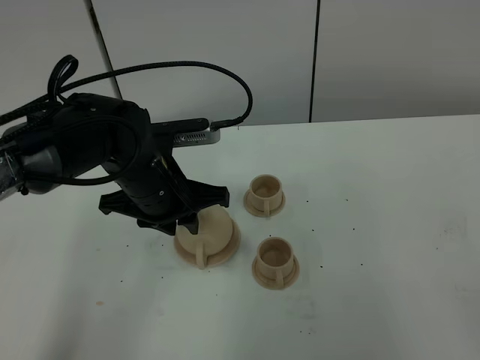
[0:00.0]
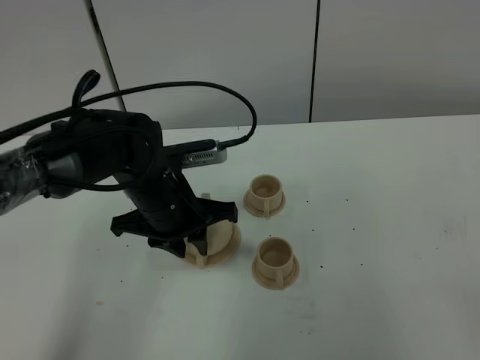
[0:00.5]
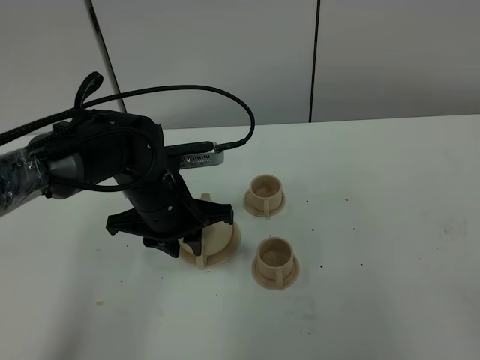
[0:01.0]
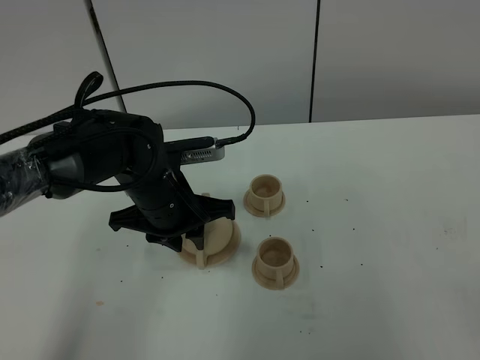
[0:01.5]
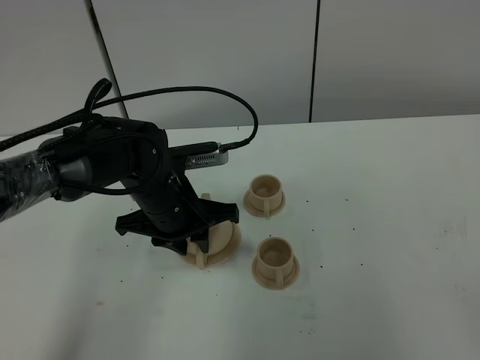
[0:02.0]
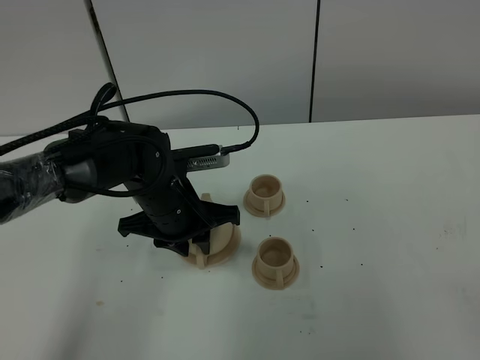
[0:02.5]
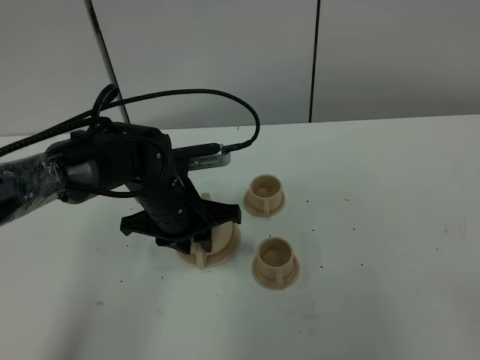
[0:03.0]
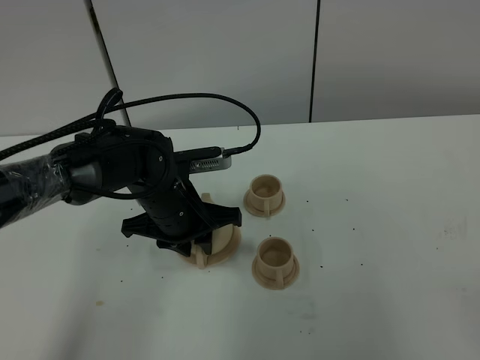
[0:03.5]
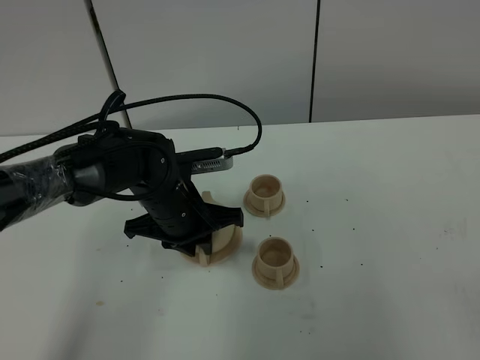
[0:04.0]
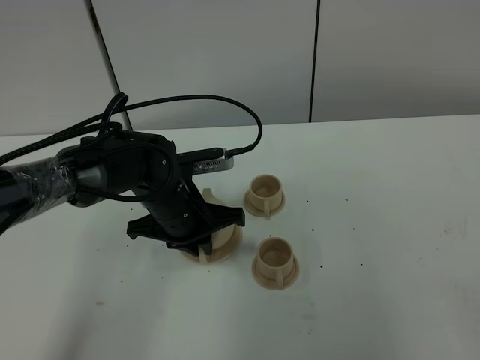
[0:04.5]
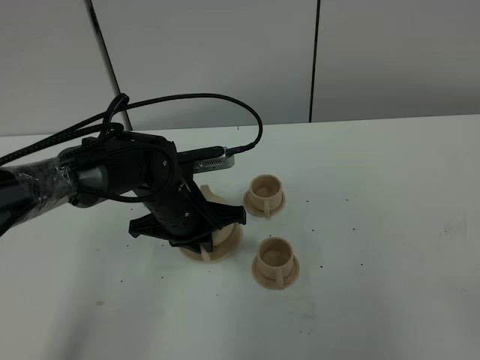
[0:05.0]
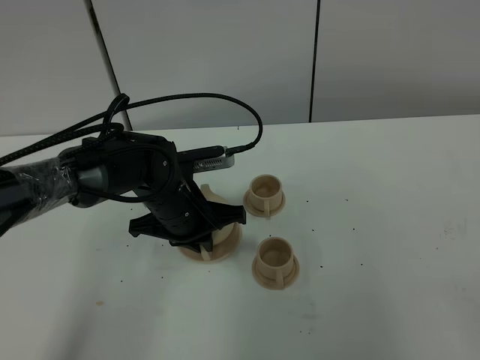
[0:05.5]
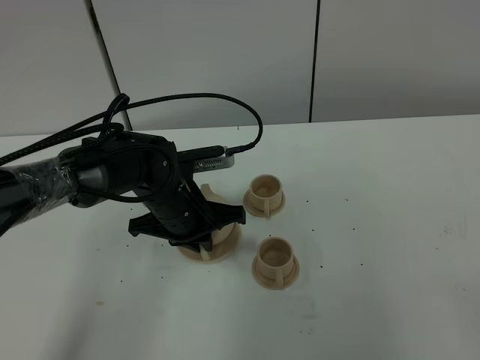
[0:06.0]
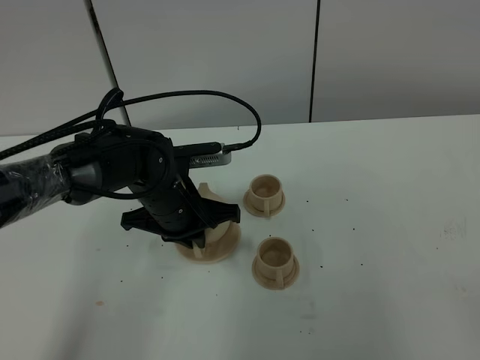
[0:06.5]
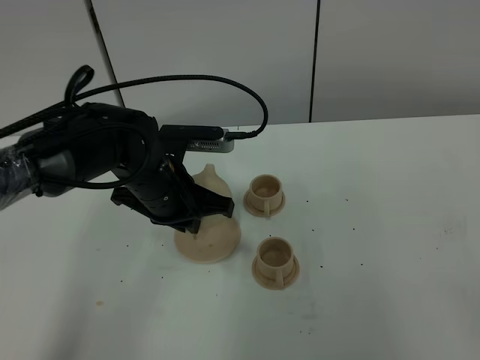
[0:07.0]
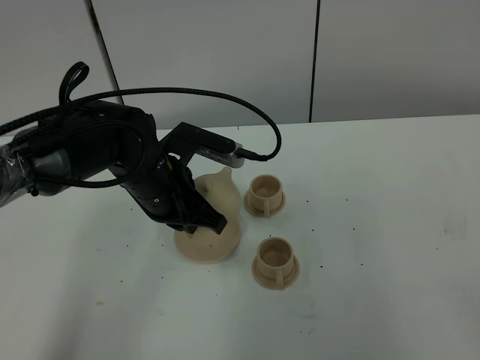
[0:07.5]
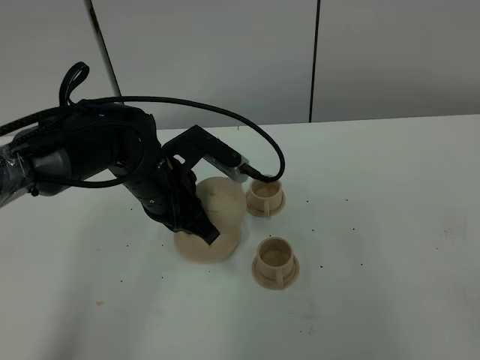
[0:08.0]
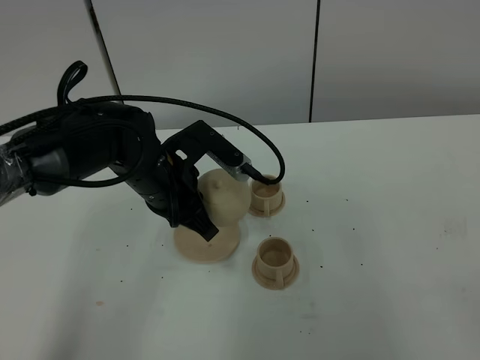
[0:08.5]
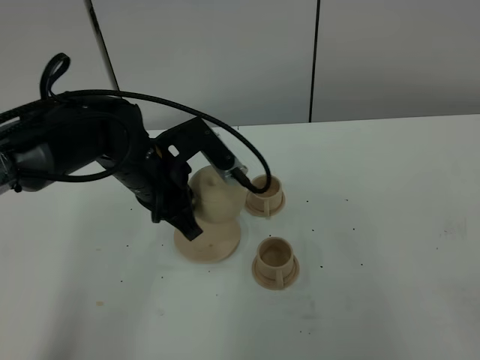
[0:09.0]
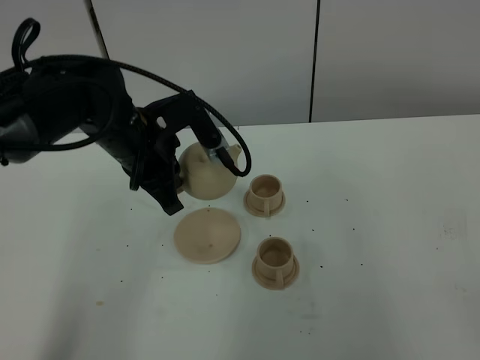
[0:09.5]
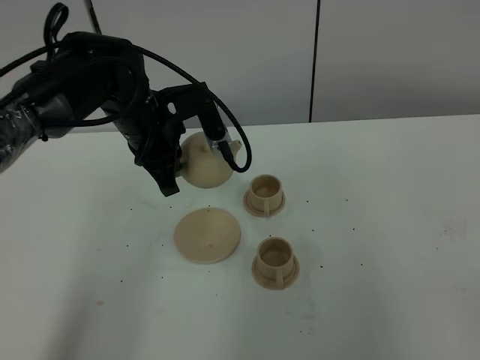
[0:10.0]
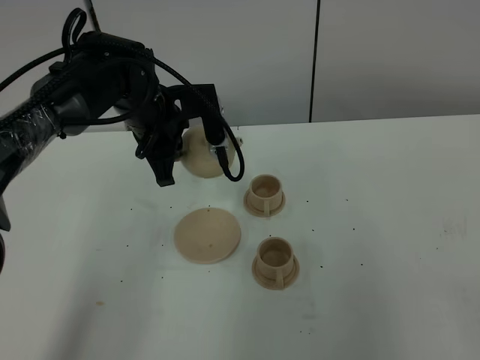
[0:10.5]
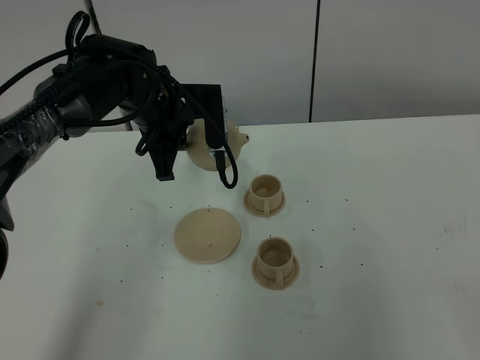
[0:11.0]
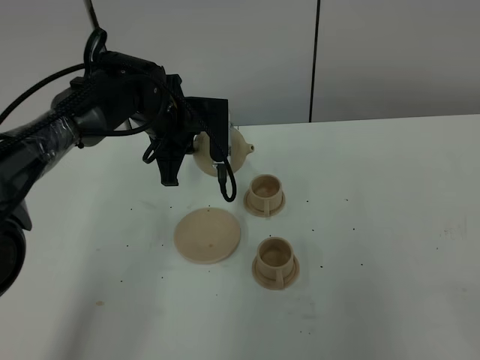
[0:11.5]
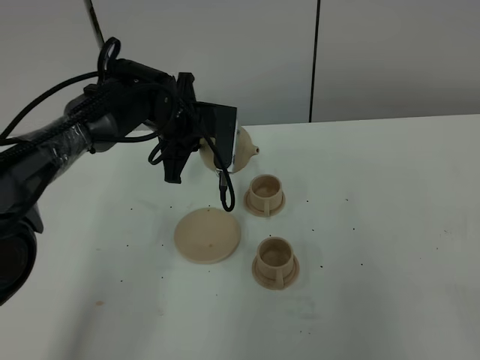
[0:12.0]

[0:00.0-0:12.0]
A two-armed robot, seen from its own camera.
Task of the whole recording: grasp the brown teapot and pour the tea into the two brown teacups one by one, put the brown teapot back in its original place.
Step, 0:00.0 to 0:06.5: Pick up the teapot with the left gripper.
0:00.0 to 0:02.0: There are only small adjustments of the grippers.
0:02.0 to 0:04.0: The left gripper closes.
0:04.0 to 0:06.0: The left gripper closes up.
0:06.0 to 0:08.0: The left gripper moves upward, approximately 5 cm.
0:08.0 to 0:10.0: The left gripper heads forward, covering roughly 5 cm.
0:10.0 to 0:12.0: The left gripper changes place by roughly 5 cm.

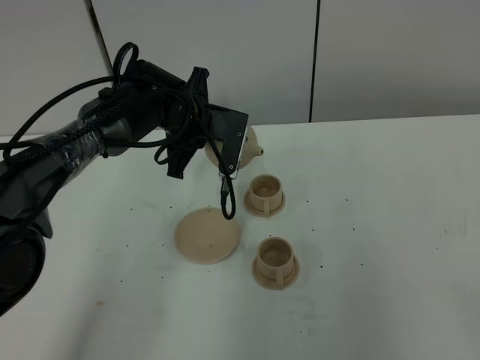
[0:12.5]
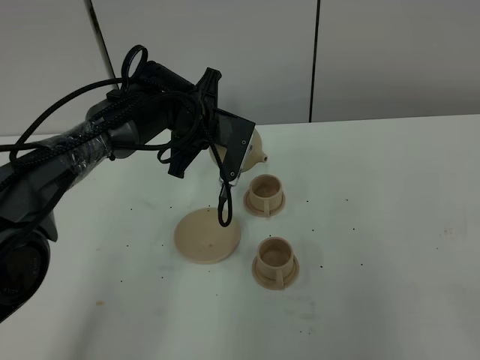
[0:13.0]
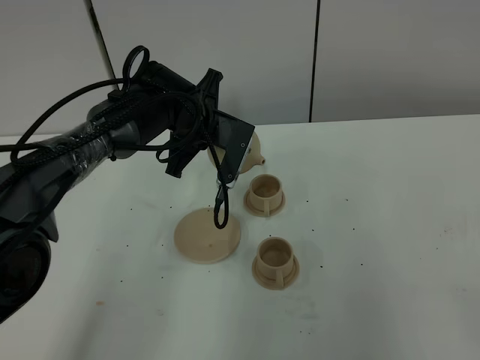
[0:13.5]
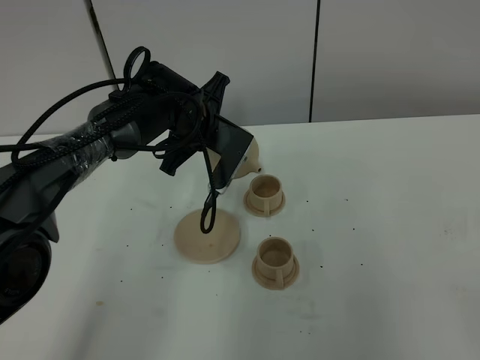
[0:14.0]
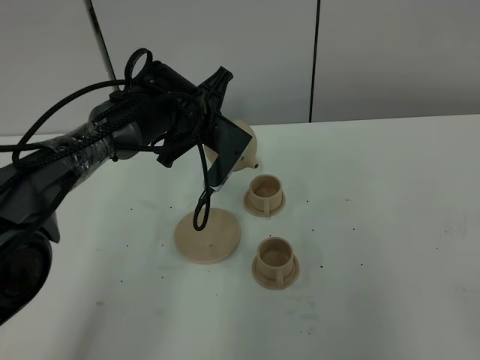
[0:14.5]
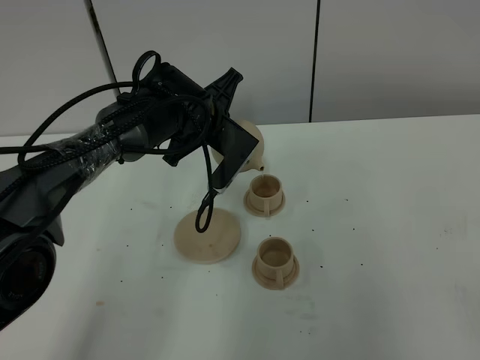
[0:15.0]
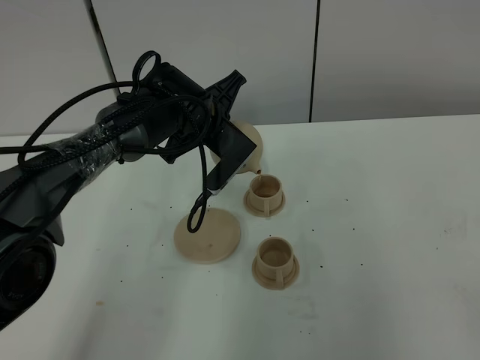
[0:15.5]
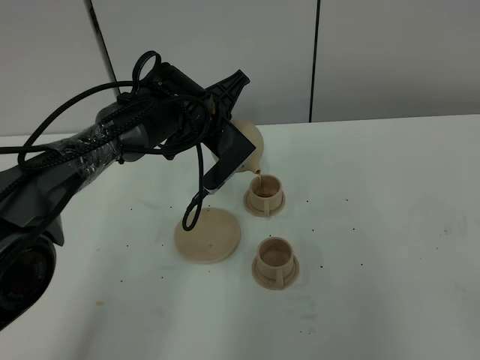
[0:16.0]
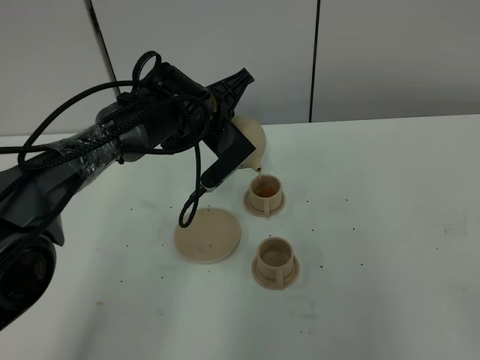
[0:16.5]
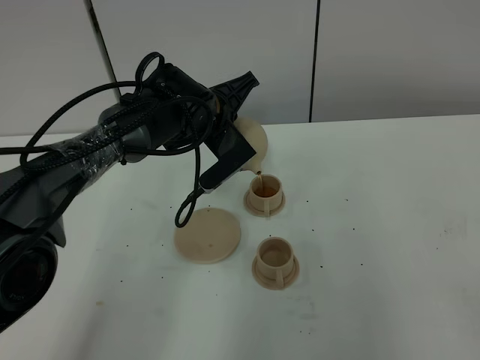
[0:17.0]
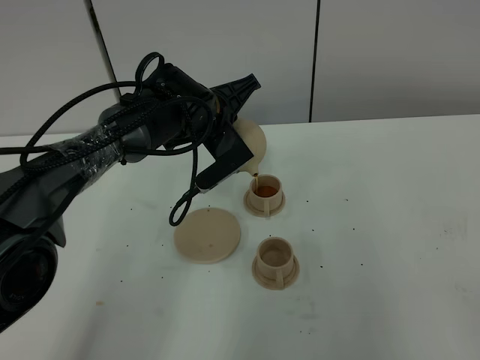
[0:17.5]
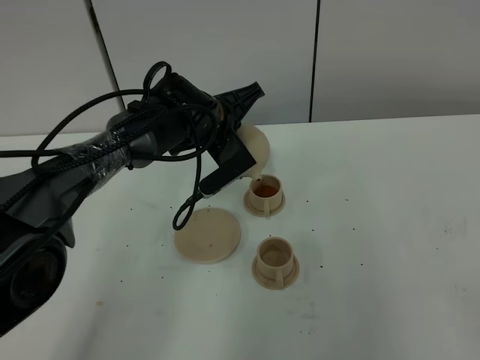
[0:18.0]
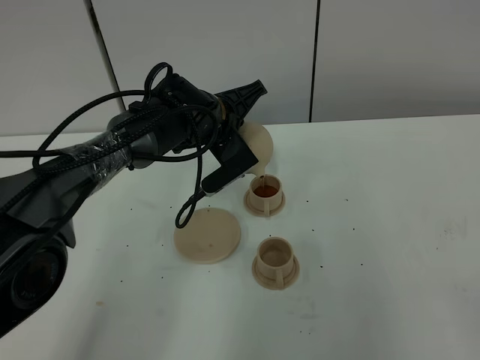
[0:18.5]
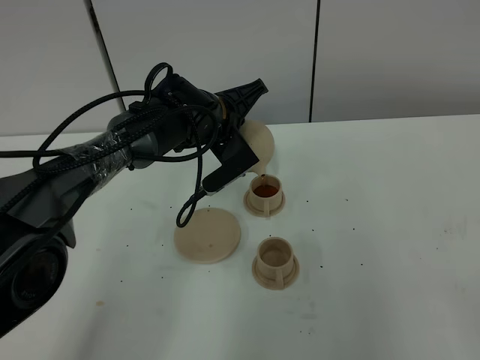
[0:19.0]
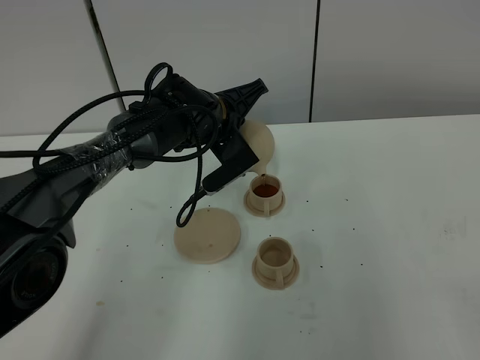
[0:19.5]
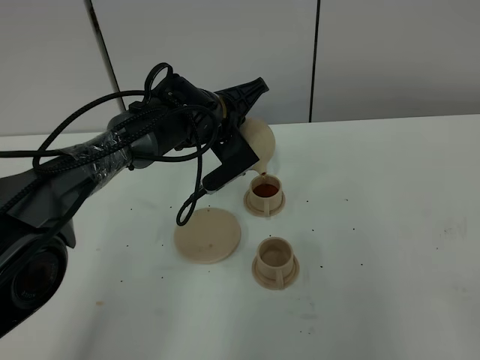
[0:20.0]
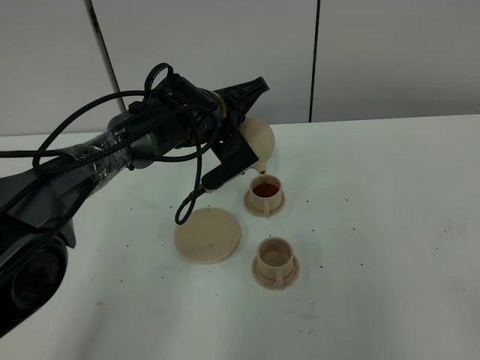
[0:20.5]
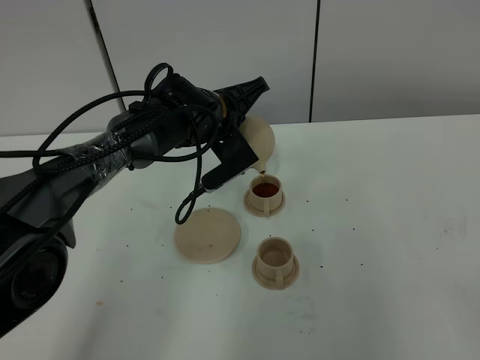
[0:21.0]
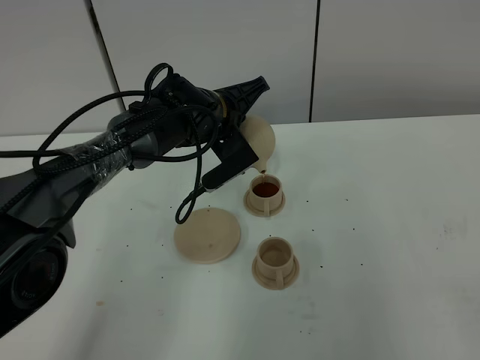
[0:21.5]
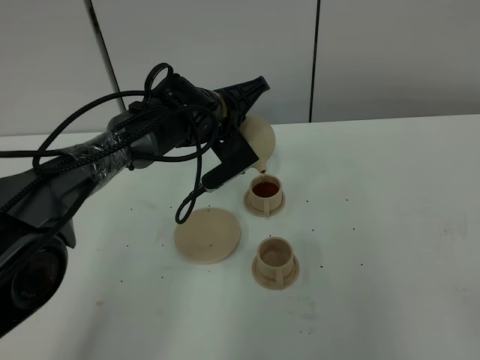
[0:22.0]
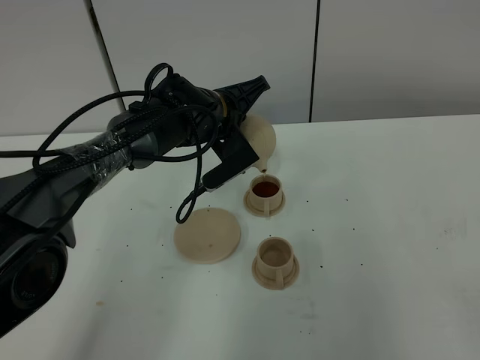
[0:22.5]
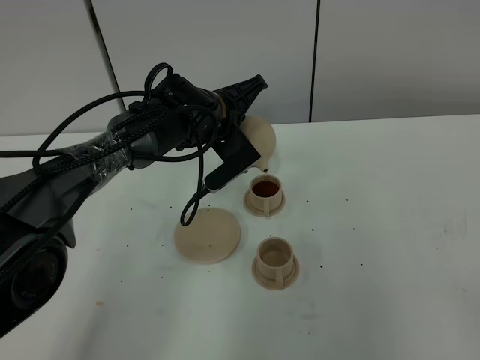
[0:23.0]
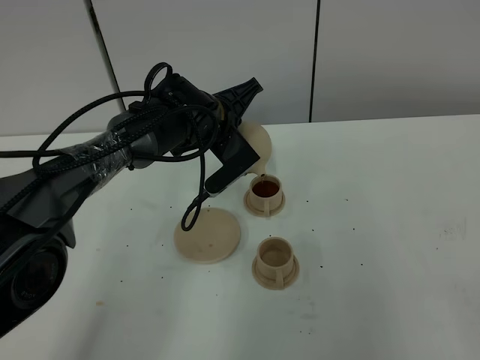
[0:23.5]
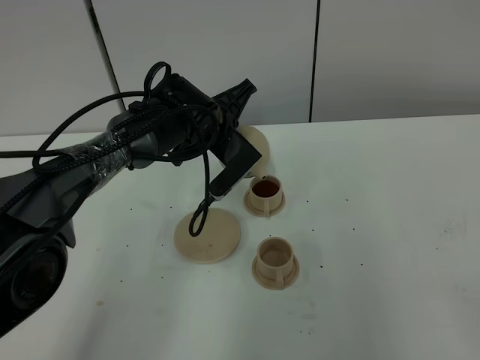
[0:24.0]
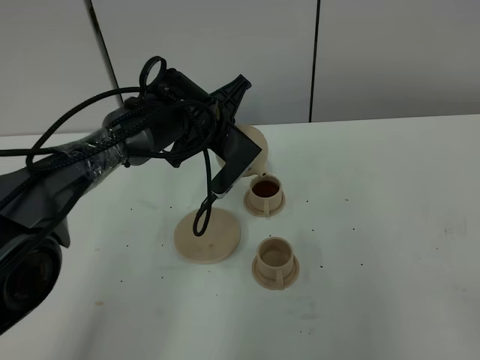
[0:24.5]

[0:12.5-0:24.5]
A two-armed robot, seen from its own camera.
Task of the whole recording: grasp the brown teapot and pour the tea into the two brown teacups one by one, put the brown teapot back in its original place.
0:14.5 to 0:16.5: The grippers make only small movements.
0:16.5 to 0:18.5: The grippers move only a little.
0:18.5 to 0:22.5: Neither gripper changes place.
0:22.5 to 0:24.5: There are only small adjustments of the grippers.

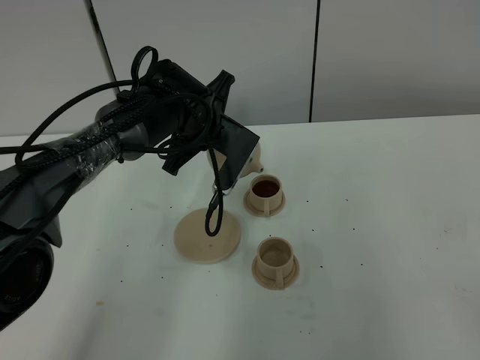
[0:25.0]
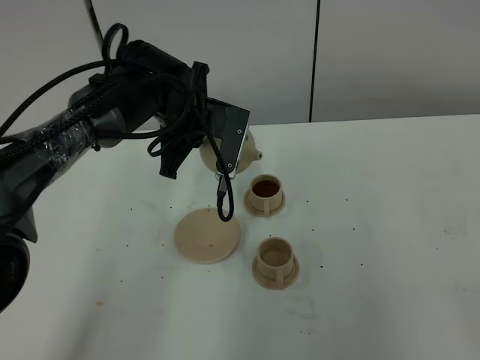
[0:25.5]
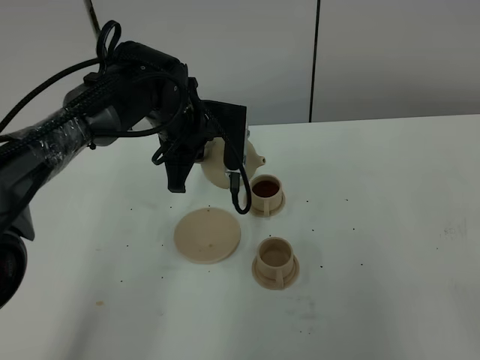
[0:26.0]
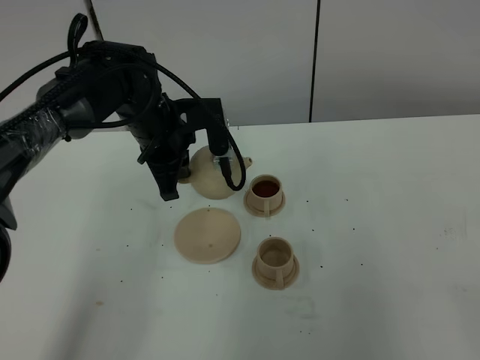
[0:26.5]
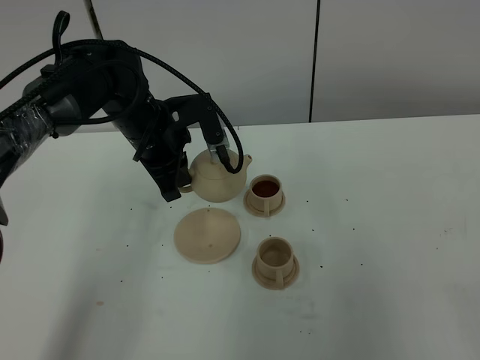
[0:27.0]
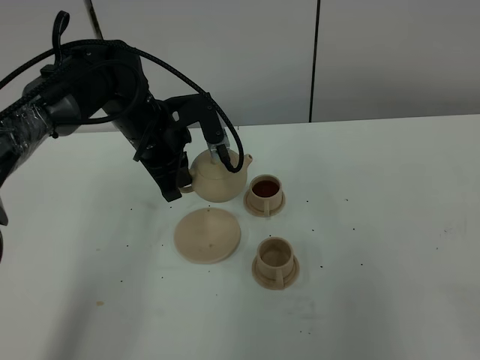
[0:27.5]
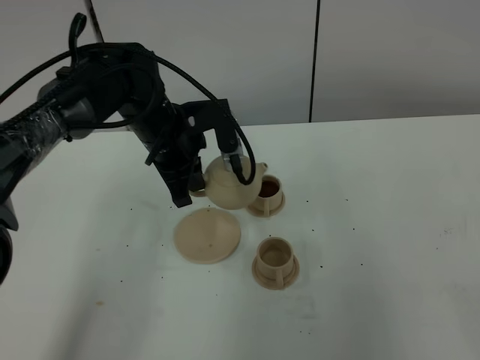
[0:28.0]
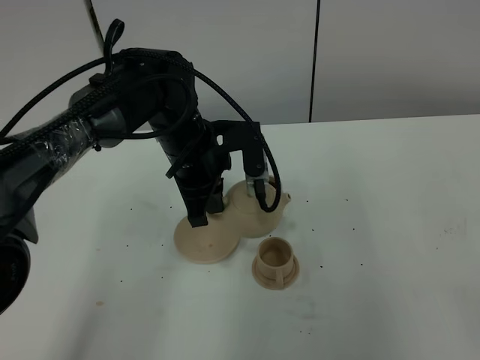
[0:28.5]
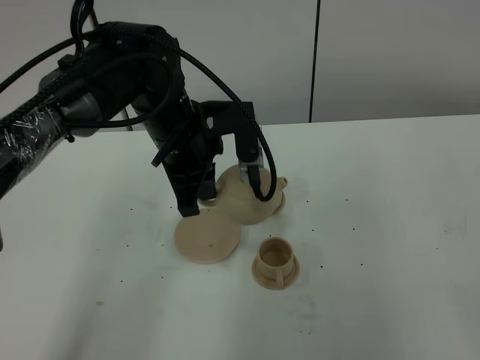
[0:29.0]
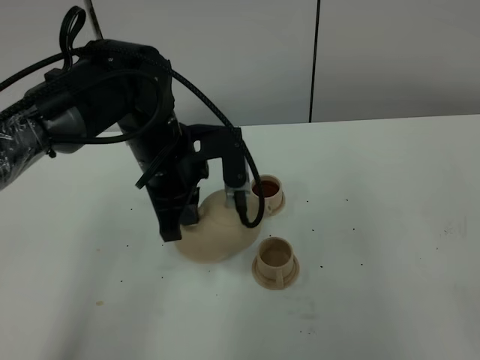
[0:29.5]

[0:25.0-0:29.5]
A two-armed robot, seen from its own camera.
Task of the whole recording: grasp the brown teapot and pour the tea into the two brown teacups one by one, put the brown teapot back in its original place.
0:25.0 to 0:27.0: The left gripper heads to the left, covering approximately 5 cm.
0:27.0 to 0:29.5: The left gripper heads backward, covering some 10 cm.
